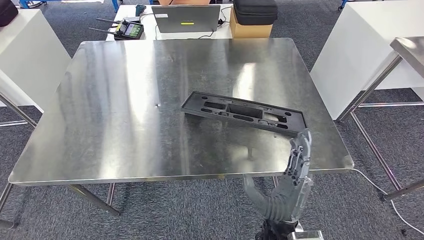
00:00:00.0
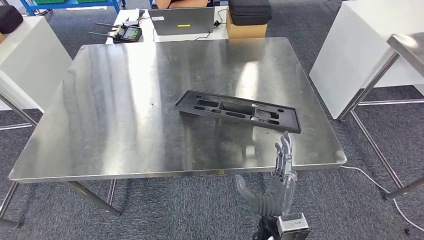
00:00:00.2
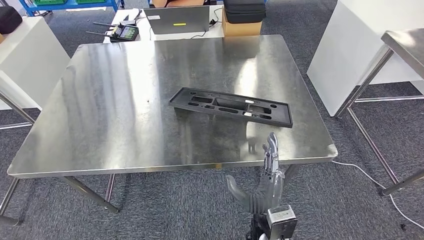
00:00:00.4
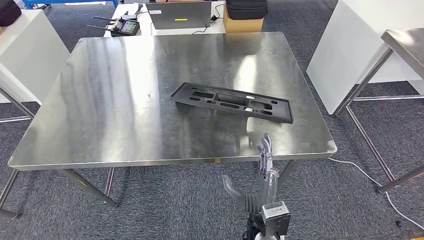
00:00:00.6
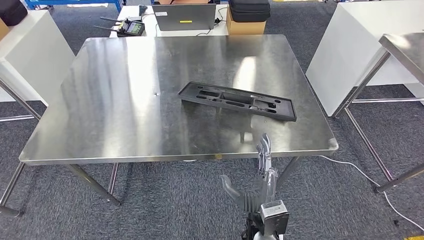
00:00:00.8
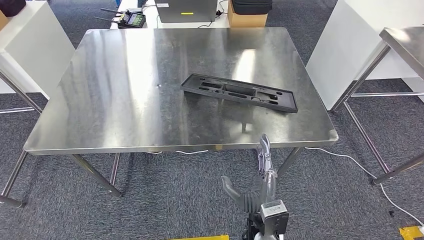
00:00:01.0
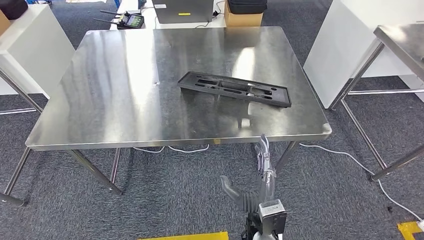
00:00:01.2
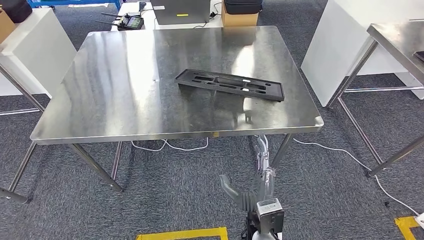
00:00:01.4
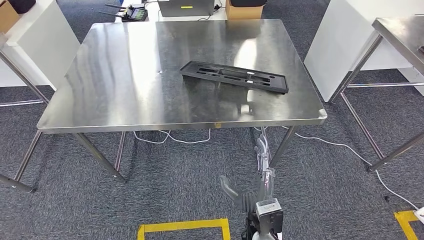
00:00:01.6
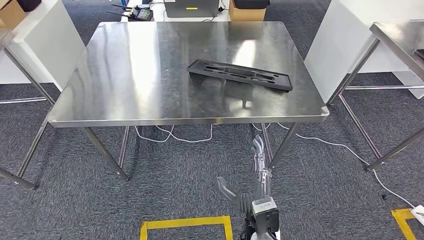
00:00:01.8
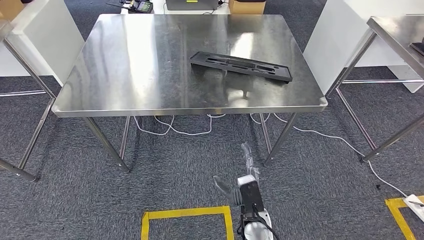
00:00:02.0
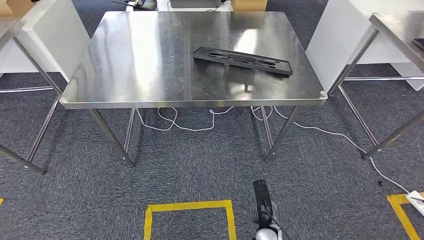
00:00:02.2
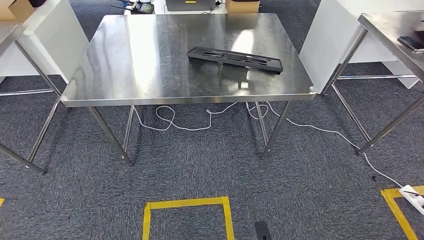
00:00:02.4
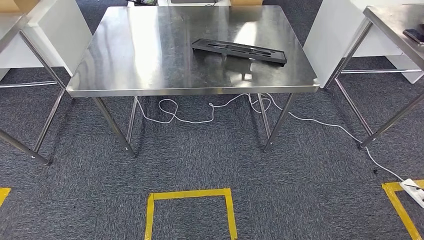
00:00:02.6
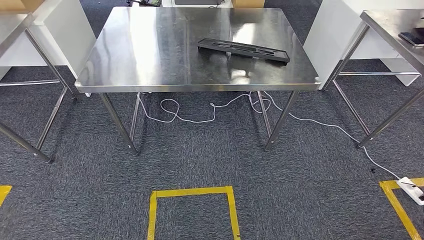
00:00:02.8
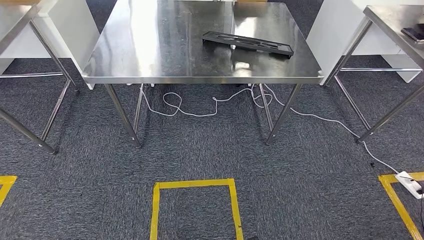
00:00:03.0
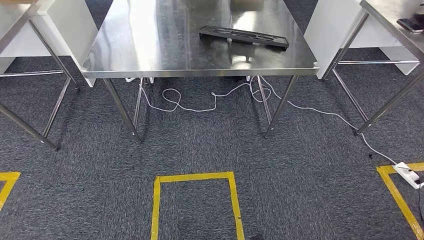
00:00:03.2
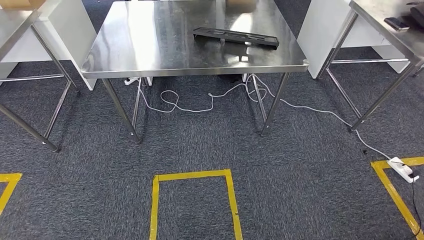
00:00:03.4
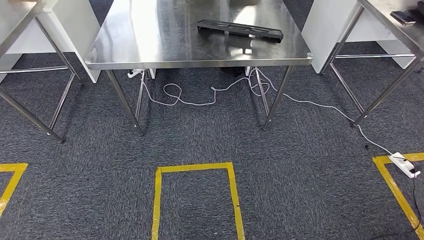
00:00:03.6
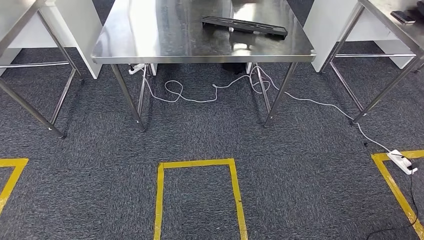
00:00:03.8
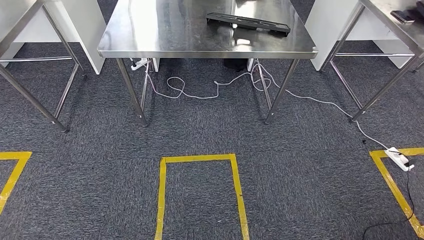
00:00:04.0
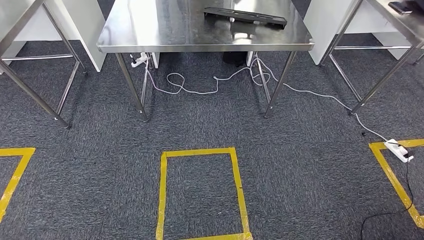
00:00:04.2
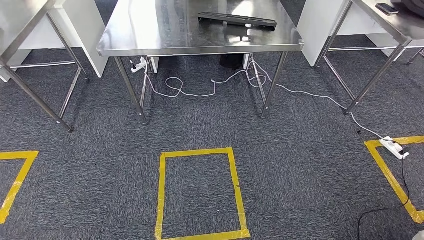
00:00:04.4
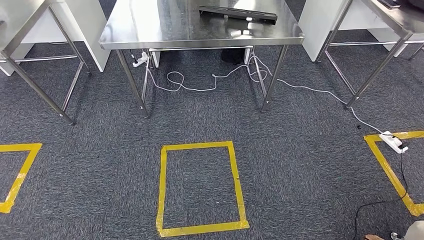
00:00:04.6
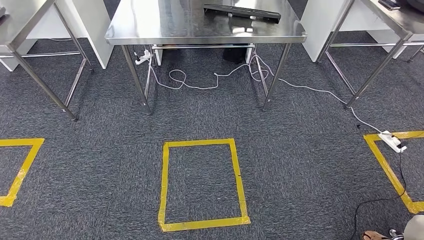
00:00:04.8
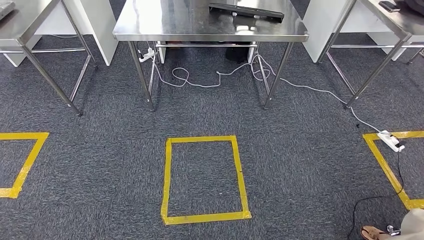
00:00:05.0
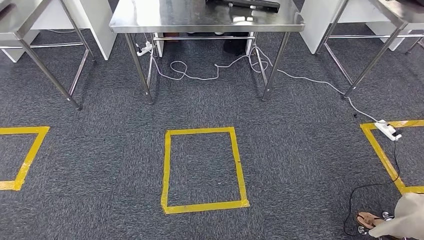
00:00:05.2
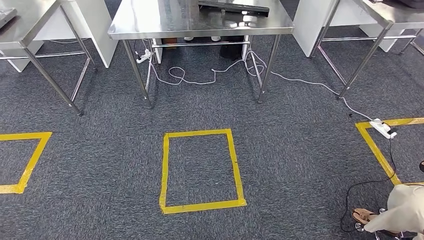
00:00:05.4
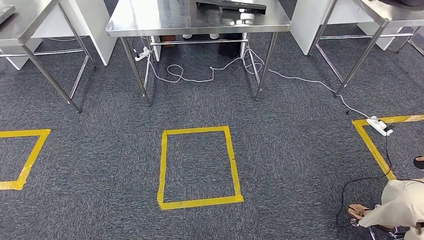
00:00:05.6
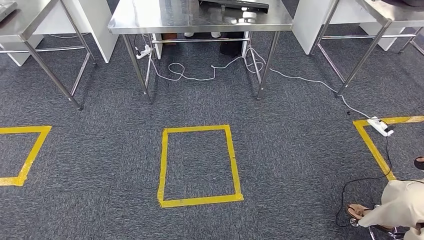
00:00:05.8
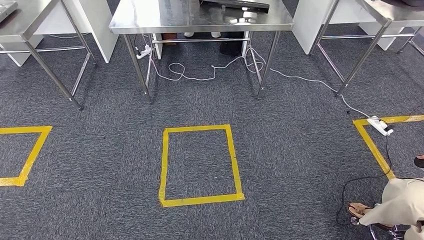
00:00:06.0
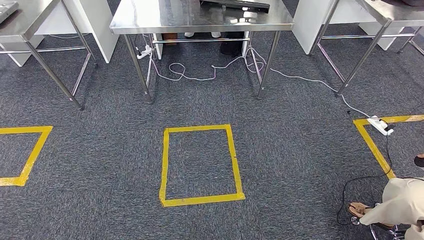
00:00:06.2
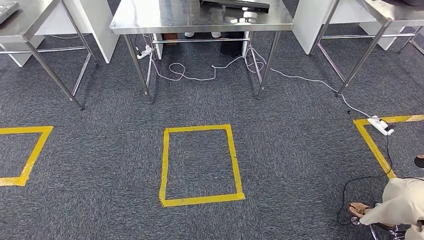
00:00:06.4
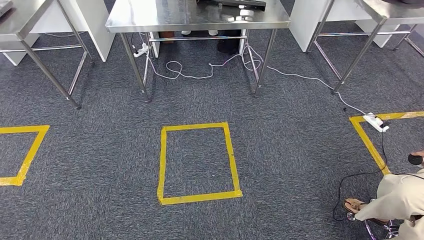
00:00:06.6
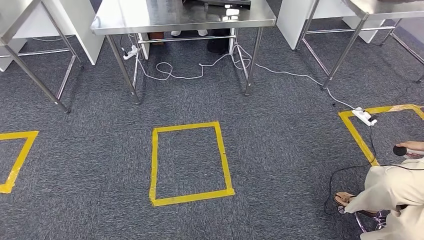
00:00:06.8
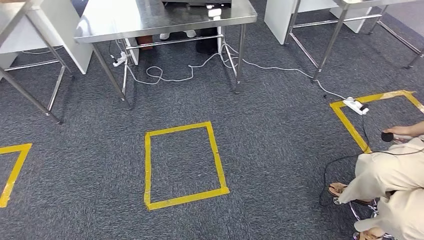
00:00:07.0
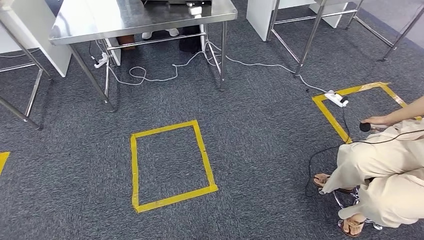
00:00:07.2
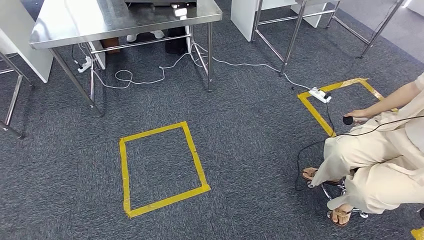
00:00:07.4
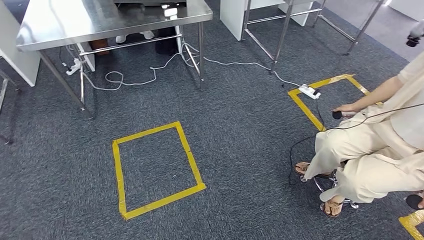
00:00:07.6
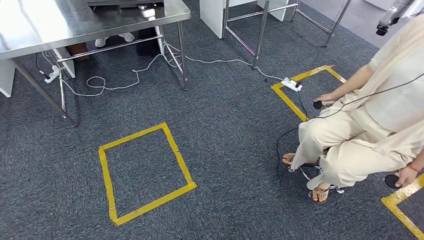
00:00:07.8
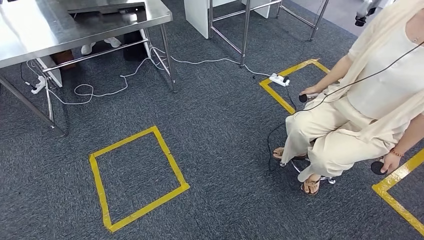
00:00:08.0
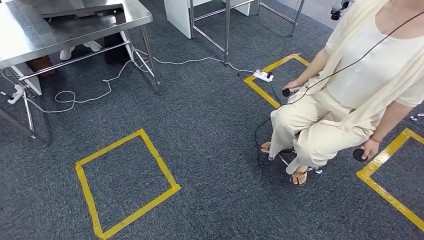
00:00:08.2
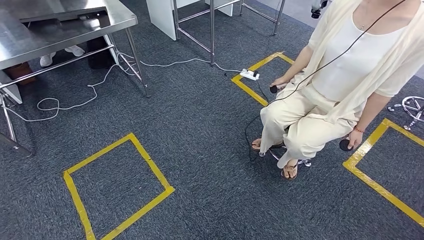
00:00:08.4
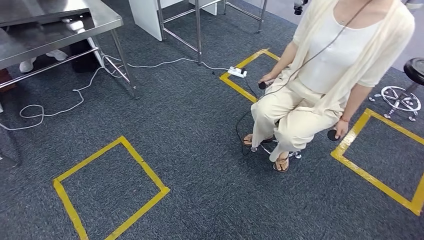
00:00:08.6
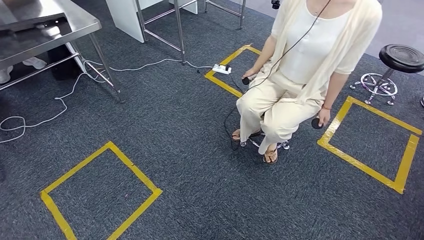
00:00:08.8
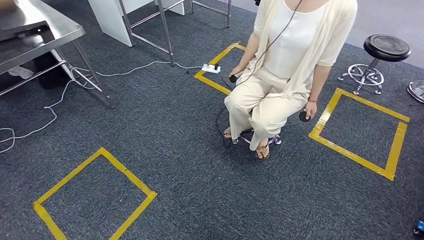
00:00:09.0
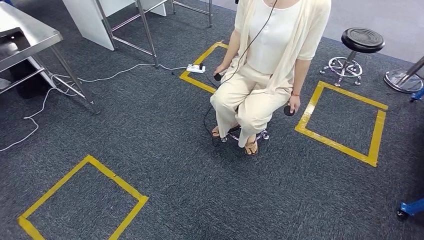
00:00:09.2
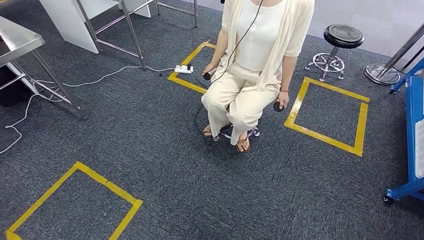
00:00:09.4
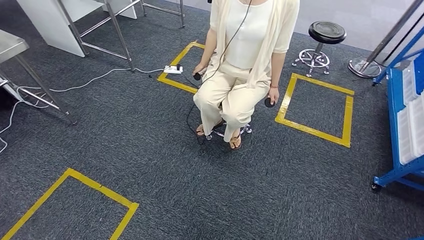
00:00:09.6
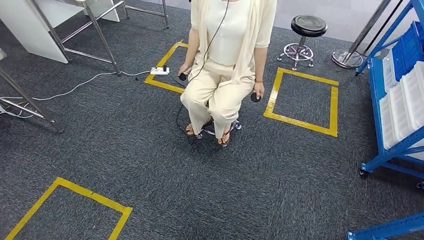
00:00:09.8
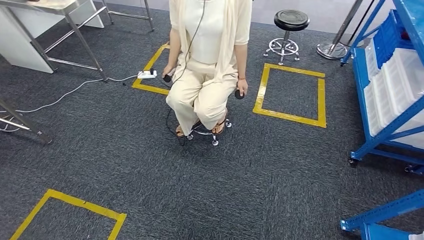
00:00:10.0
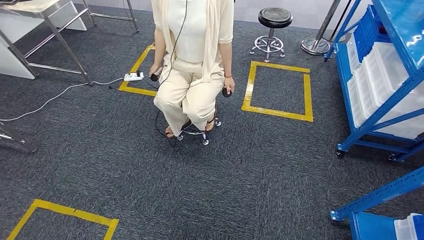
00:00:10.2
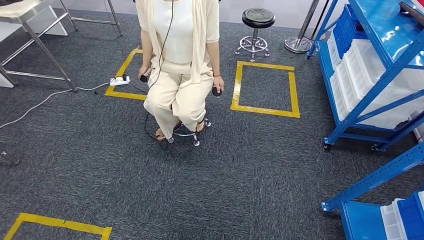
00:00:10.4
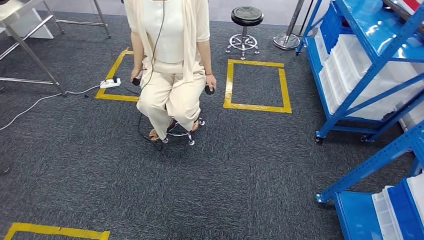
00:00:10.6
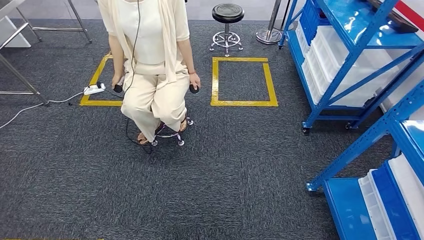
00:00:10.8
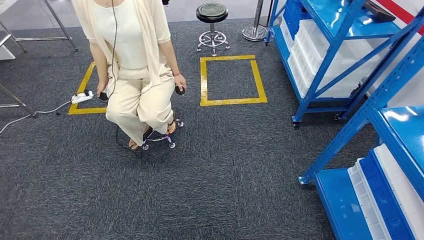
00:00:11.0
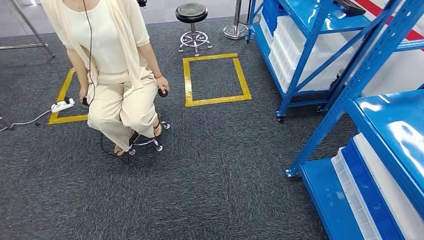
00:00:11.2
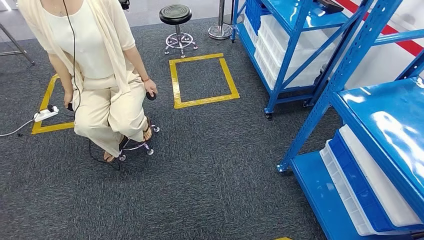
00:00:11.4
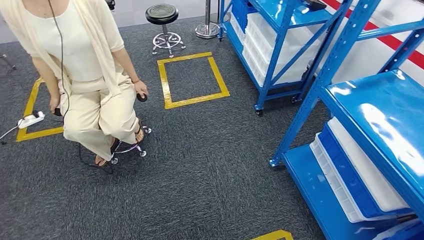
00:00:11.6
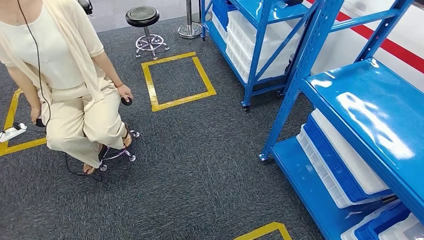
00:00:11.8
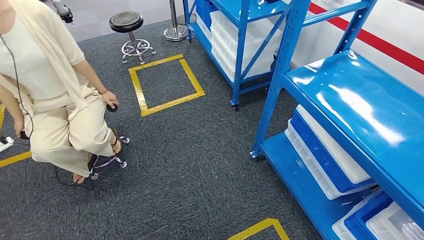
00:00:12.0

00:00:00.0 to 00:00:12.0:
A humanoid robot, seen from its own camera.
Step, 00:00:00.0 to 00:00:04.4: Insert the large material into the corresponding slot on the workbench.

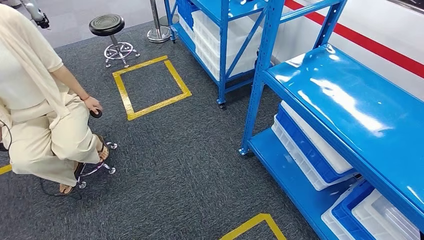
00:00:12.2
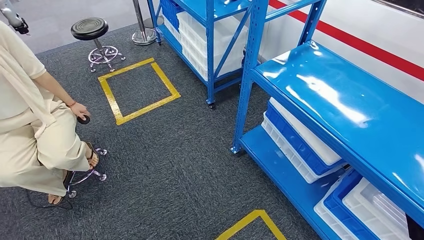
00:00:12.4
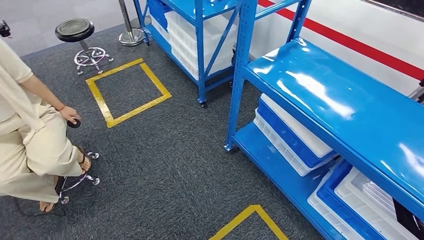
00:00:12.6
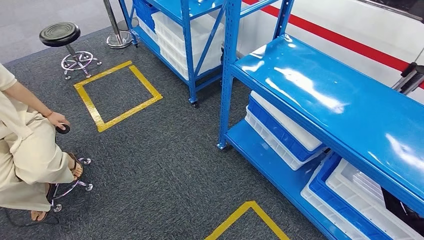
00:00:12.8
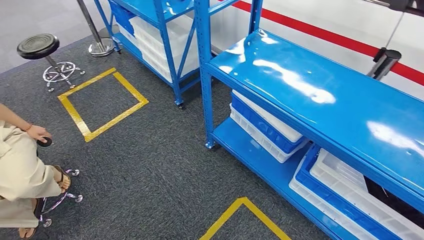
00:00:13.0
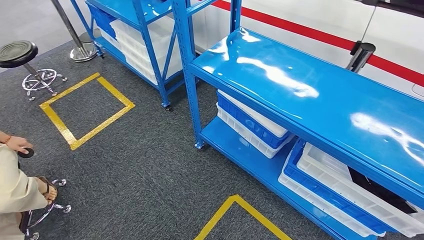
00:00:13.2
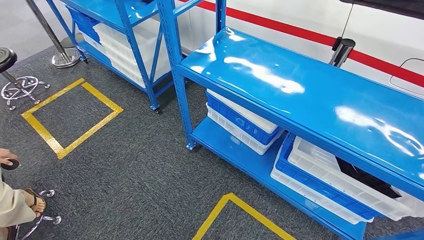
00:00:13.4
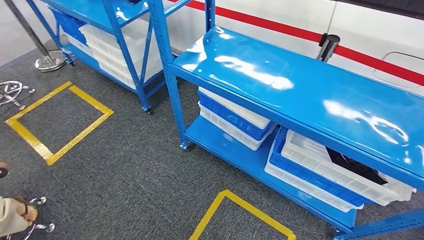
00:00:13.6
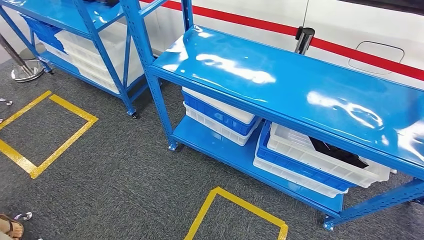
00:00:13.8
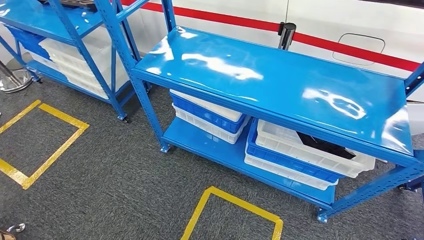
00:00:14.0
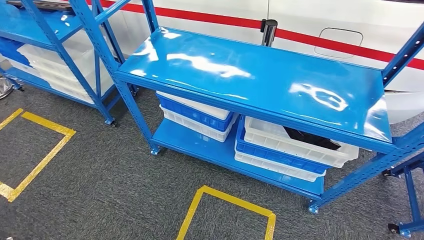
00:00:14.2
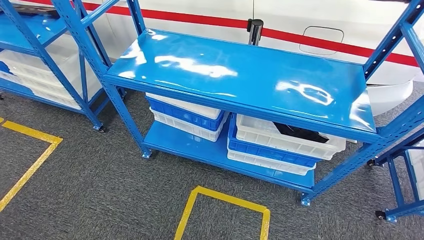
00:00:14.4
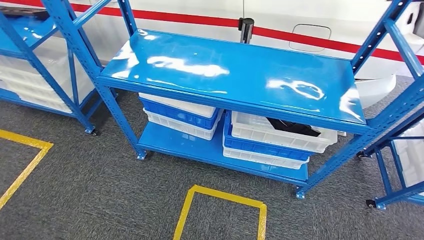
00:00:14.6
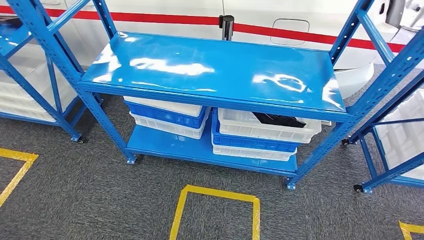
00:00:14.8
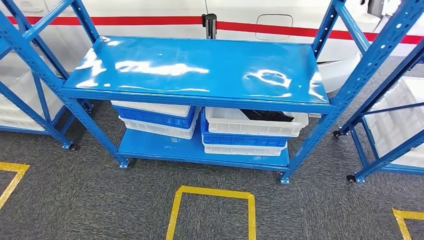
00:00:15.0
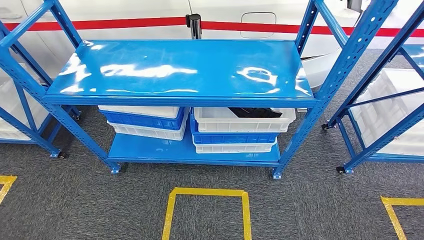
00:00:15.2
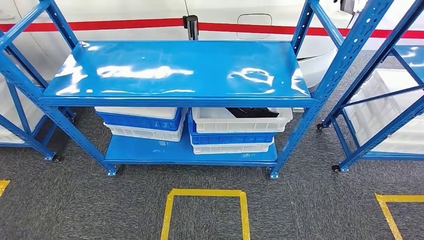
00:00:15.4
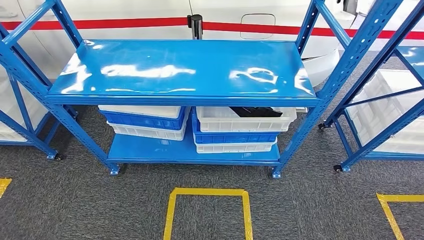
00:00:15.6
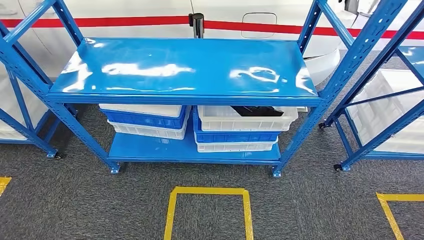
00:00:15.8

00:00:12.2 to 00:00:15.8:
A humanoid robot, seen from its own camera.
Step, 00:00:12.2 to 00:00:15.6: Return to the initial position at the shelf.
